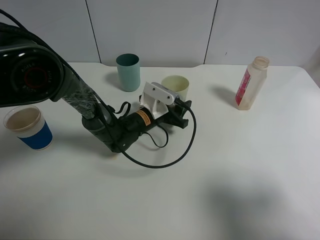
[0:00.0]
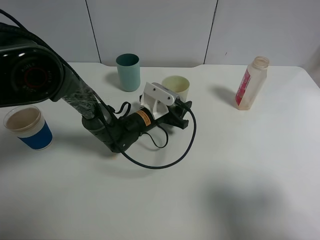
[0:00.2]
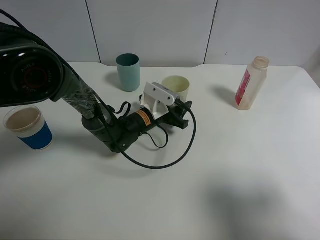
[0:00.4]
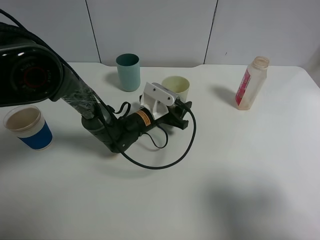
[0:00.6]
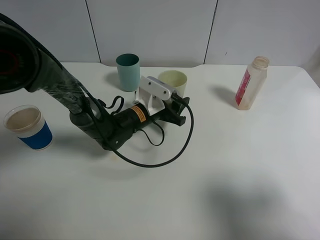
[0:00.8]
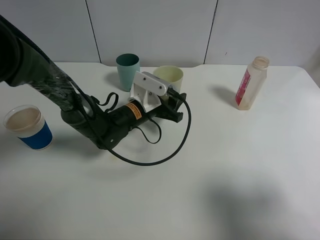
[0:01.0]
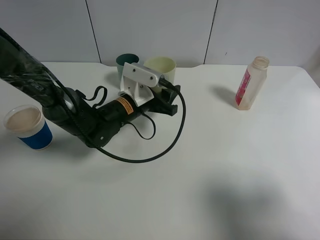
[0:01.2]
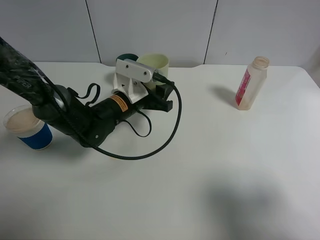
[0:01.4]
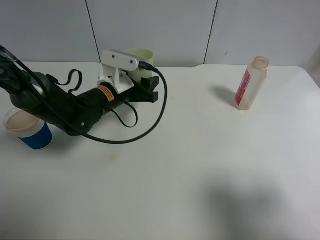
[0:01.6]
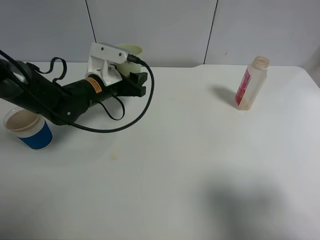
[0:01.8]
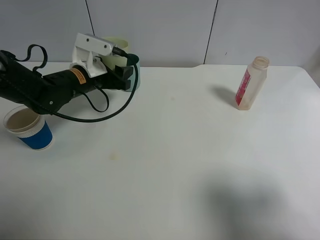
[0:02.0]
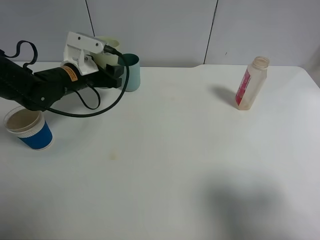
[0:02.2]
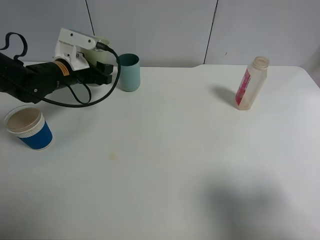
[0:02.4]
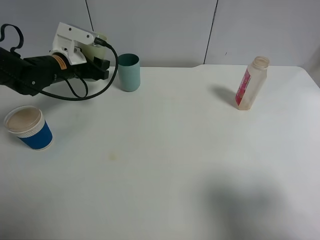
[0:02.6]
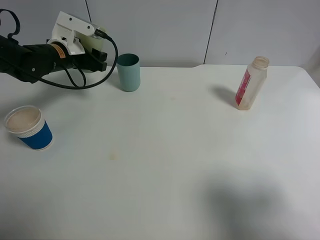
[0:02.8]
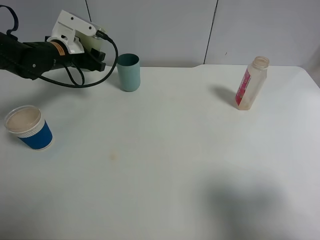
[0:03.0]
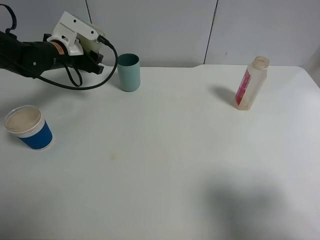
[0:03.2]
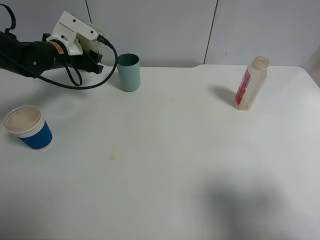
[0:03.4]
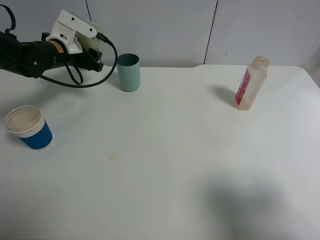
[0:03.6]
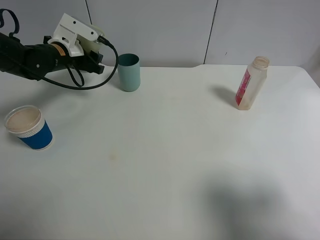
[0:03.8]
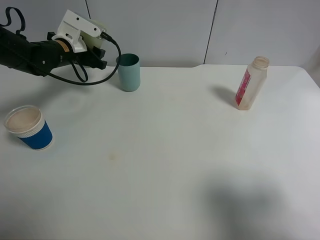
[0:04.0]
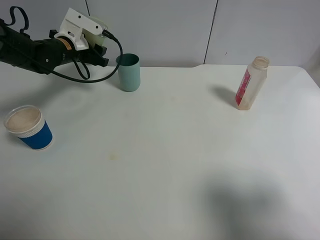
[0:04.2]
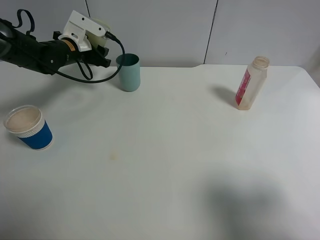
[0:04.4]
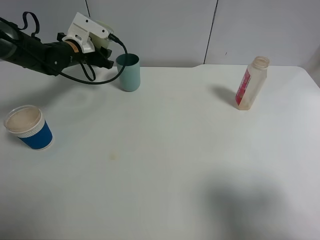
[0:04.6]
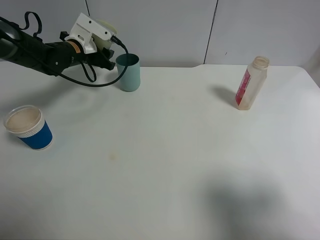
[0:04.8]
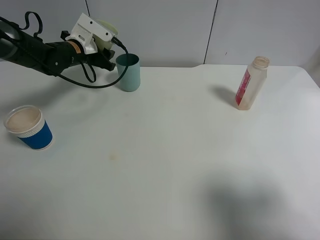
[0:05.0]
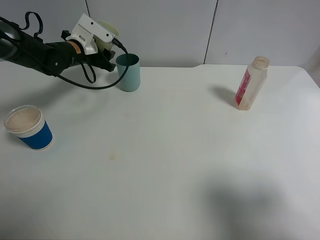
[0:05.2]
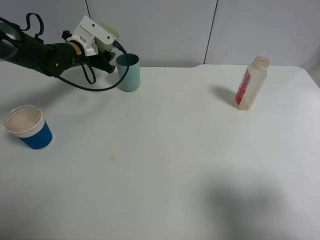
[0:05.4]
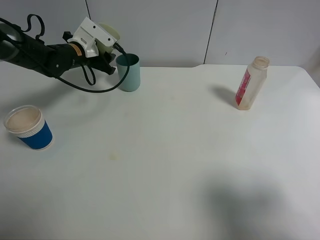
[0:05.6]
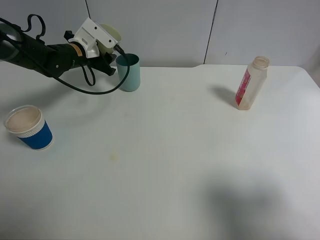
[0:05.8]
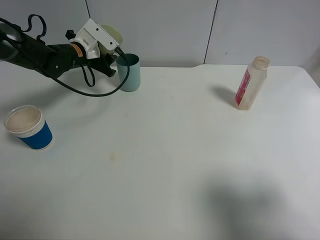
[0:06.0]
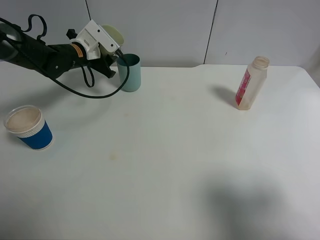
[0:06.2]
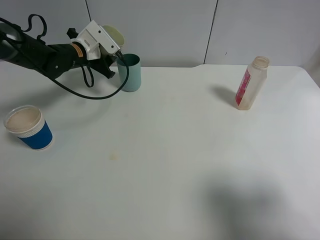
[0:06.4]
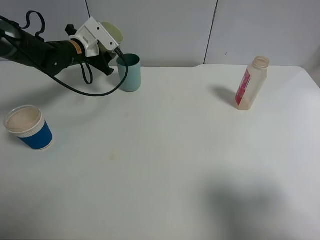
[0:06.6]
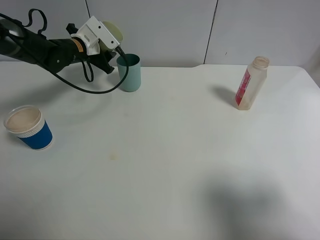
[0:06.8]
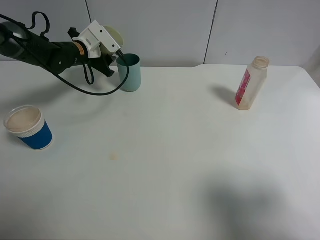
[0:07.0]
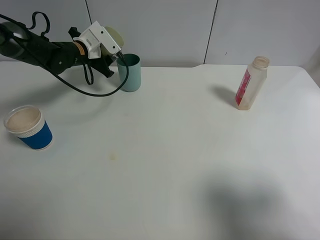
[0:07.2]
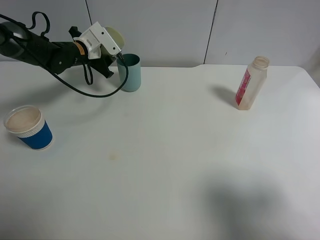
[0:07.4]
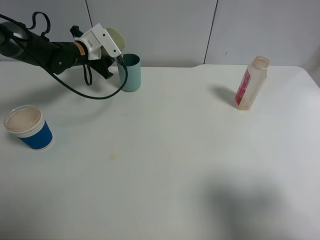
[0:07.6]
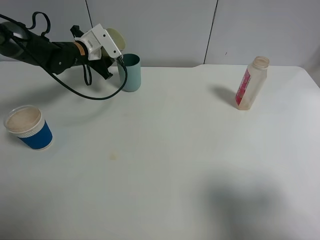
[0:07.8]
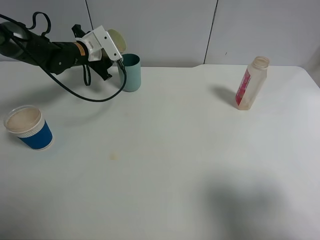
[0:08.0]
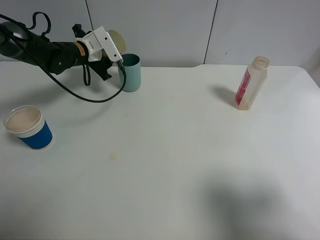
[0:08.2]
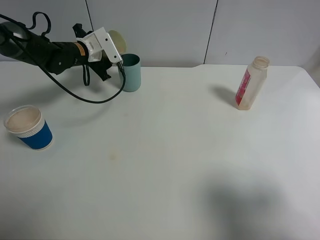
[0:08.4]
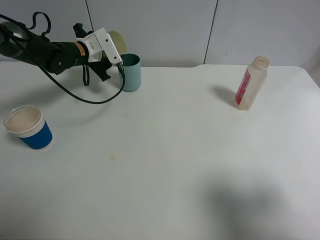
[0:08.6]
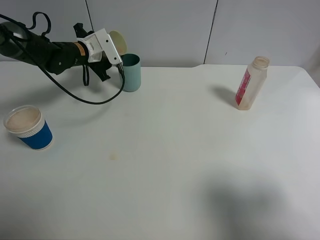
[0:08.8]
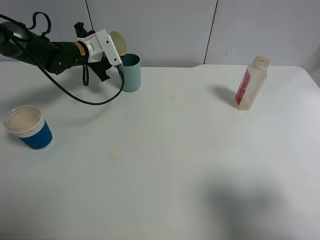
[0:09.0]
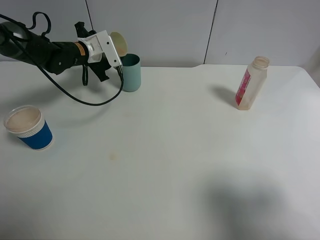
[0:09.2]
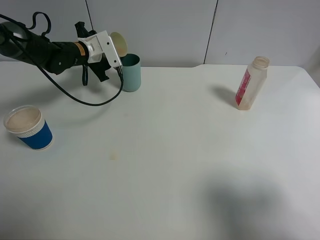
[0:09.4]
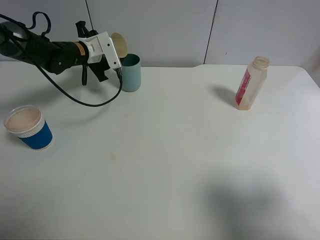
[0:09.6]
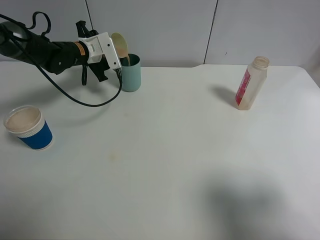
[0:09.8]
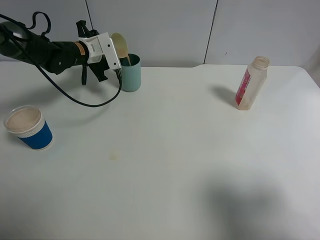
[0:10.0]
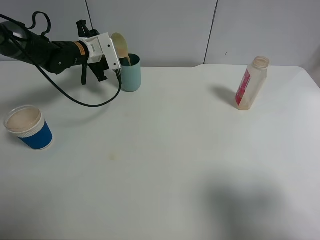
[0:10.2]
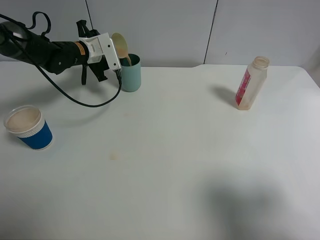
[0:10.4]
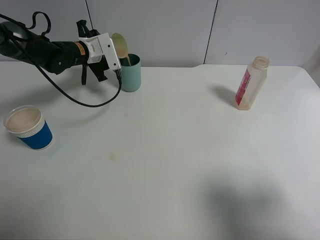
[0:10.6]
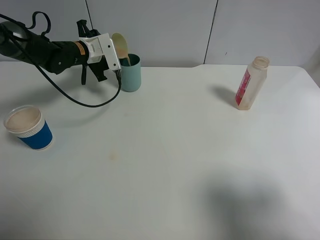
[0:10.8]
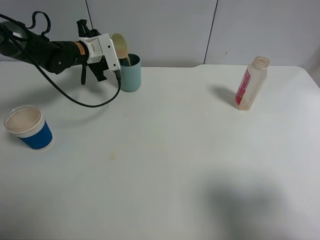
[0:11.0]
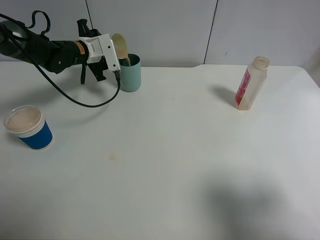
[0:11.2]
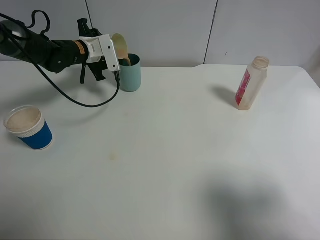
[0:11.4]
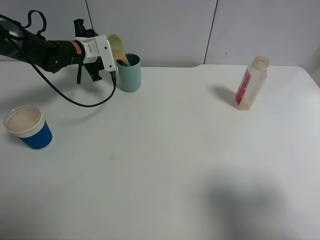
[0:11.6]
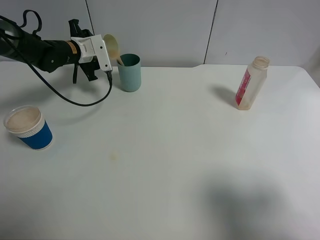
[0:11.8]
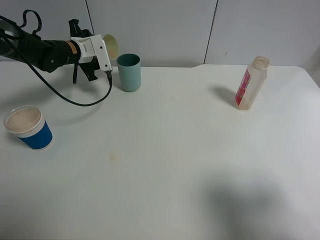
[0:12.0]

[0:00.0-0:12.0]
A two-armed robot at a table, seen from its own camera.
Task of the whole recording: use a clamp to hold the bottle of the drink, pour the beverage into a random cup, then clamp the cup containing the drink and pour the drink into another random cup.
0:00.0 to 0:01.6: The left gripper goes approximately 10 cm upward and to the left, and closes.
0:01.6 to 0:03.0: The left gripper travels to the left and forward by about 15 cm.
0:03.0 to 0:06.0: The grippers move only a little.
0:06.0 to 0:07.6: The grippers make only small movements.
0:07.6 to 0:09.0: The grippers make only small movements.
0:09.0 to 0:12.0: The grippers stay close to where they were, moving slightly.

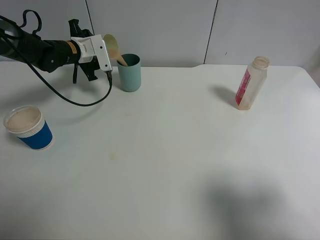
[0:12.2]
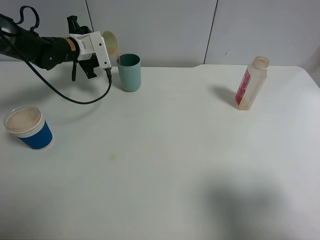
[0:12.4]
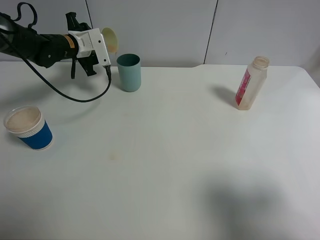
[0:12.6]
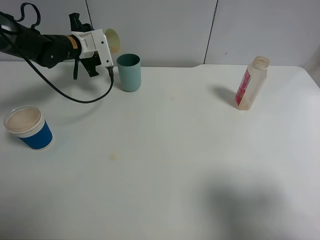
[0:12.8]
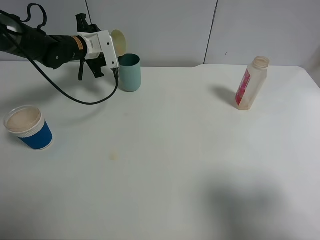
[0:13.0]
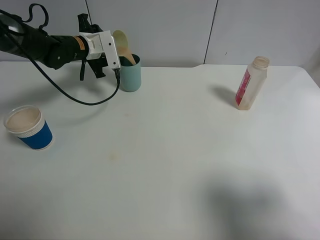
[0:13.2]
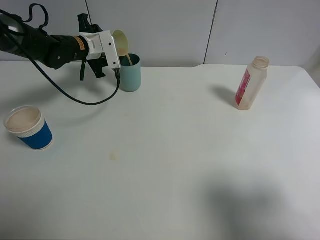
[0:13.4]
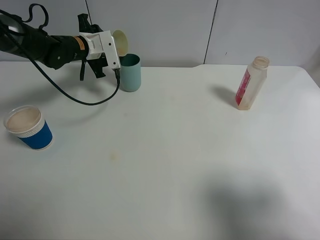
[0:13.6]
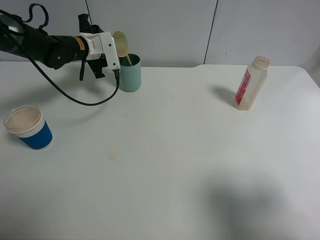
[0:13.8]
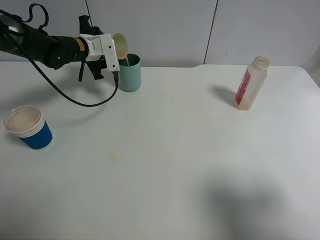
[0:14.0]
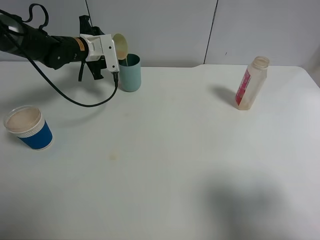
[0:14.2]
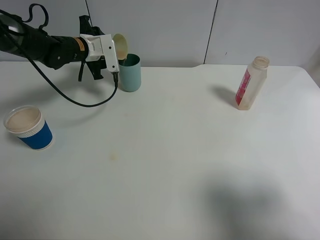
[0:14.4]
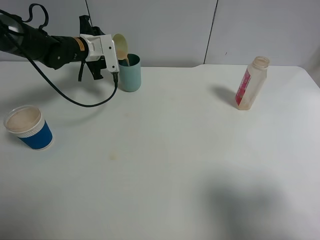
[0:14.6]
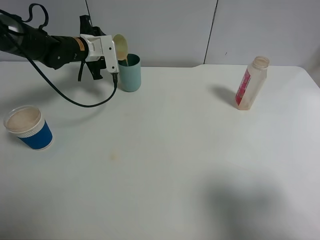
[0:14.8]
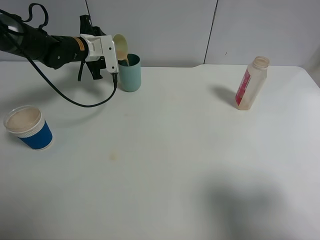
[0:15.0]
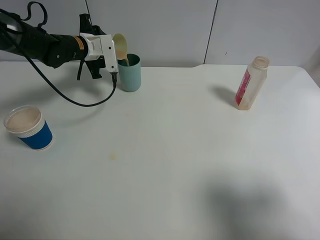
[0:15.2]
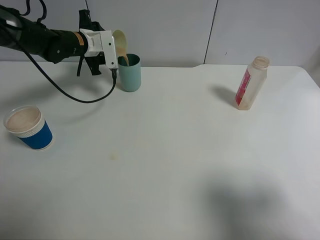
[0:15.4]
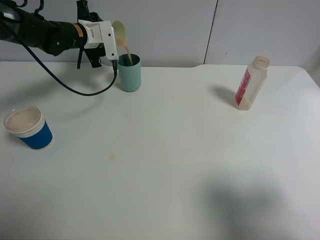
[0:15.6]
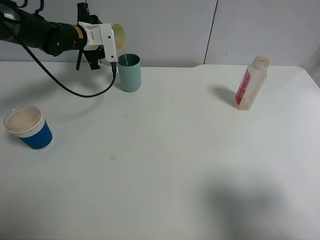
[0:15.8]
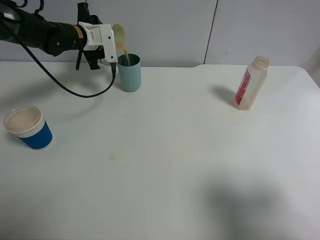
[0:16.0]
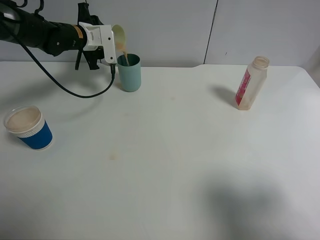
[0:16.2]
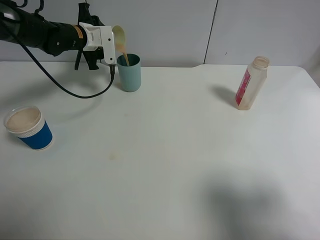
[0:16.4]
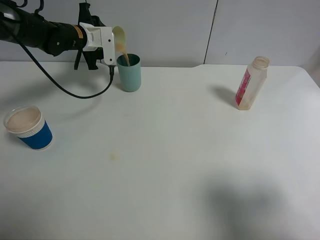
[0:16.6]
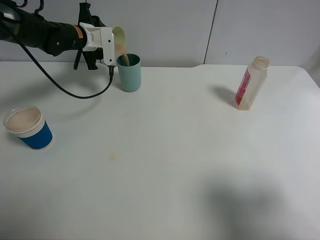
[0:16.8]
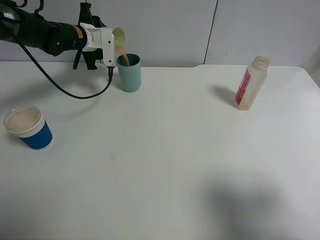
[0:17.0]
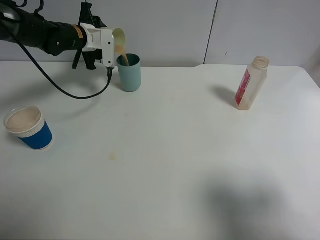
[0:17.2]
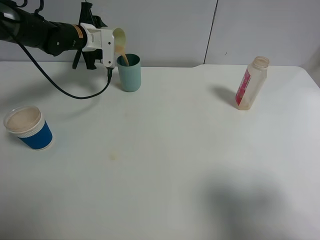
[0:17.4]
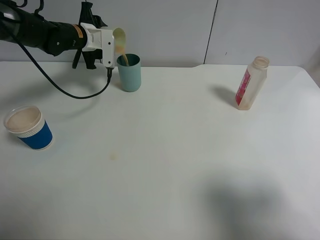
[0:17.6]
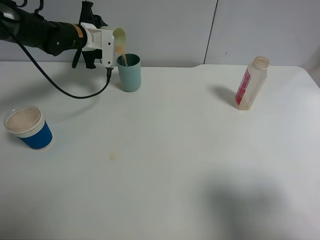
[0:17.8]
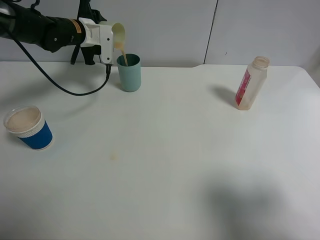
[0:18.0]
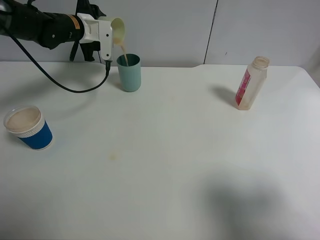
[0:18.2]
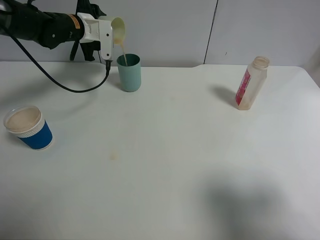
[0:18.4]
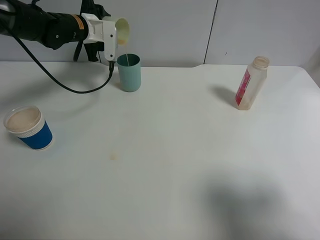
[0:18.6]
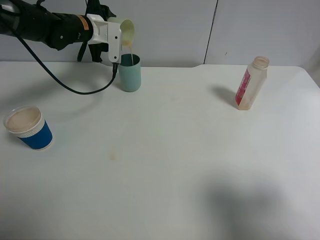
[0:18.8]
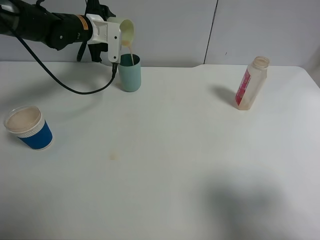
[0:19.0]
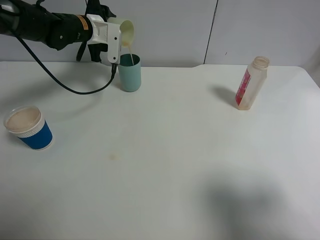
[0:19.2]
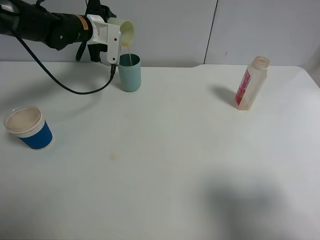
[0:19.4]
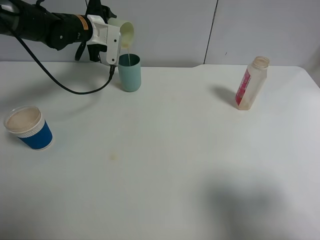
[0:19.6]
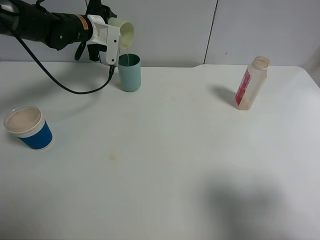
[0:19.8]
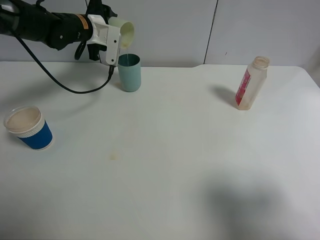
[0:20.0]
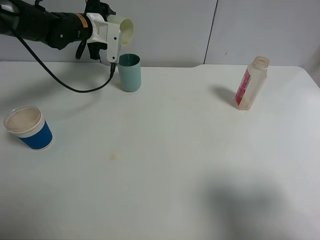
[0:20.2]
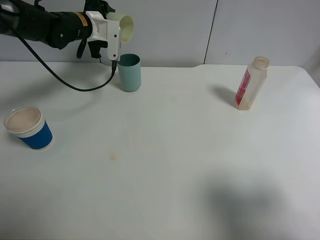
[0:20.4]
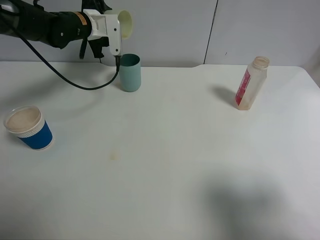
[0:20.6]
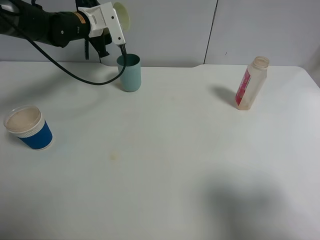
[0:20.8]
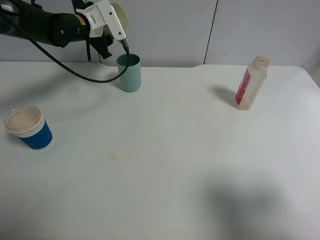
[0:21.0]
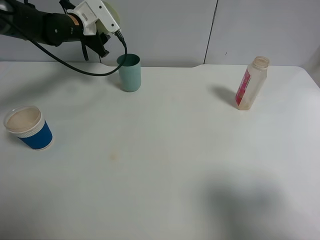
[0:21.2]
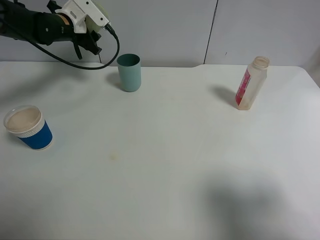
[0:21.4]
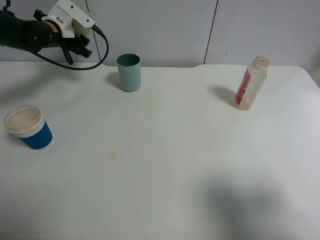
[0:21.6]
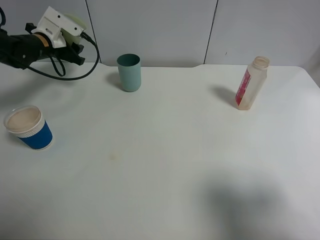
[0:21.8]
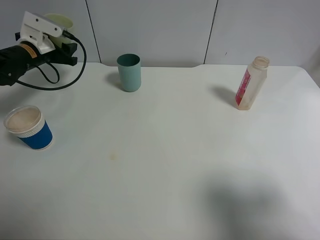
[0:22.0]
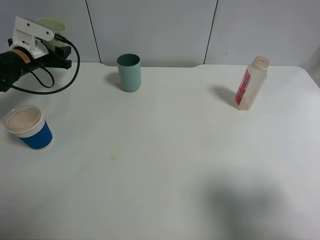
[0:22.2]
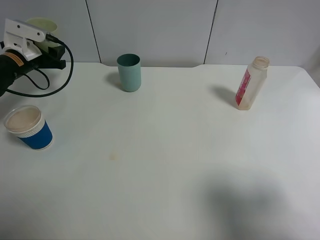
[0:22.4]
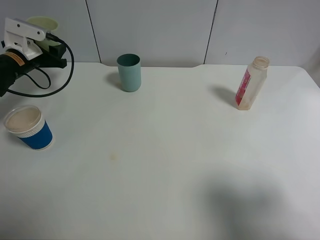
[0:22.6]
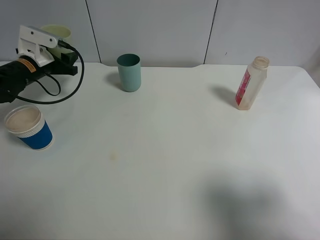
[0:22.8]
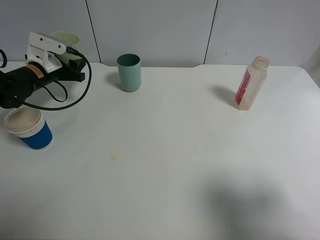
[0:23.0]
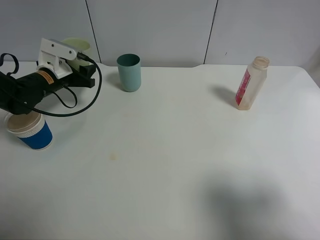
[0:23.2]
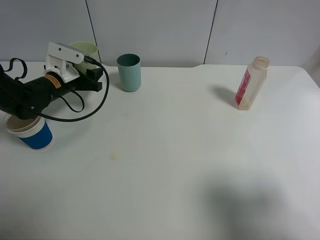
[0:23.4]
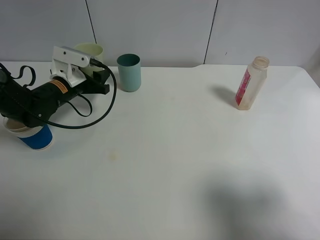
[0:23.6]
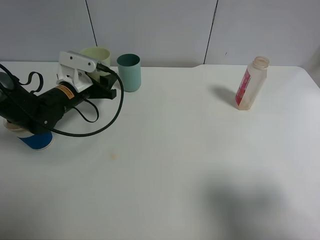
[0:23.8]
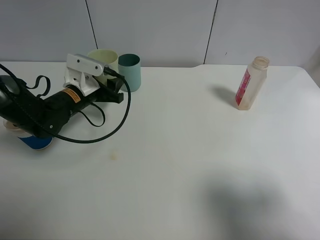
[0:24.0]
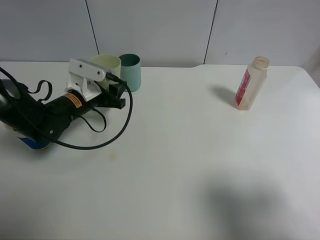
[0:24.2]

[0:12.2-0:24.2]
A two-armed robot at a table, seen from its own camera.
Task of the whole recording: use a clamp to hold the bottle of the drink, pour the beverage into a random cup, then clamp the cup containing the drink and pour the drink into another random cup.
Step, 0:12.2 to 0:20.6: Pour the drink into the blue plastic cup with left gripper.
0:12.2 to 0:18.2: There are only small adjustments of the grippers.
0:18.2 to 0:19.8: There are only small adjustments of the grippers.
0:21.2 to 0:22.6: The left gripper moves to the left, backward and downward, approximately 15 cm.
0:22.6 to 0:24.2: The left gripper travels to the right and backward by roughly 20 cm.
